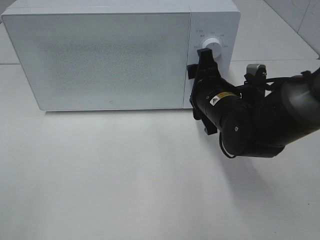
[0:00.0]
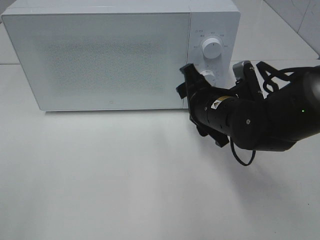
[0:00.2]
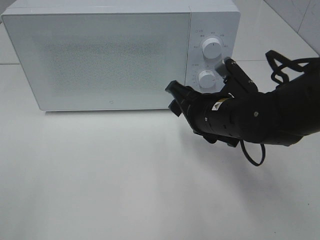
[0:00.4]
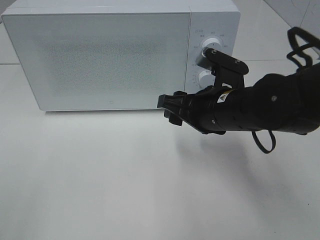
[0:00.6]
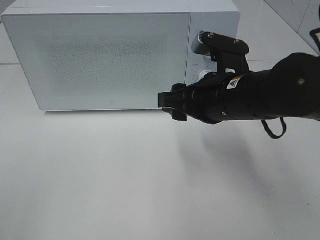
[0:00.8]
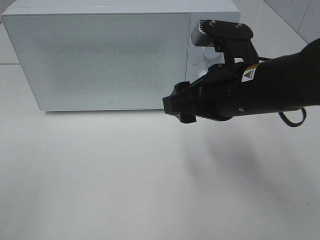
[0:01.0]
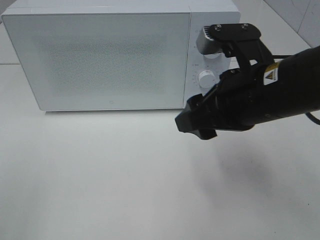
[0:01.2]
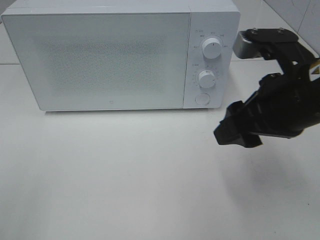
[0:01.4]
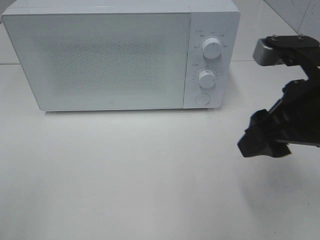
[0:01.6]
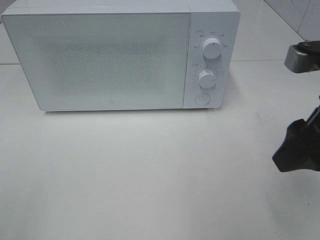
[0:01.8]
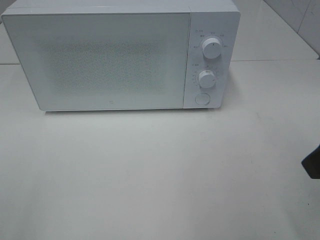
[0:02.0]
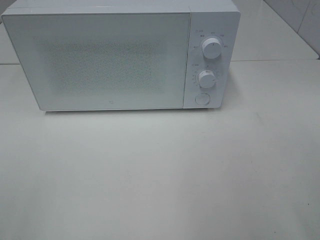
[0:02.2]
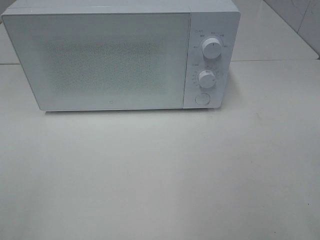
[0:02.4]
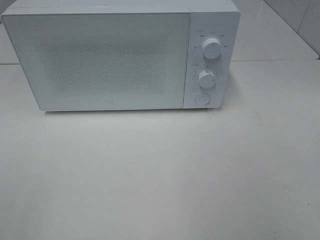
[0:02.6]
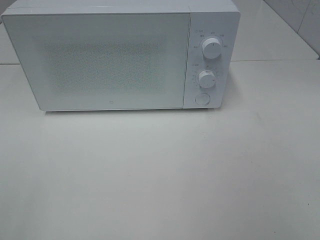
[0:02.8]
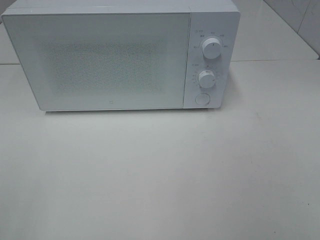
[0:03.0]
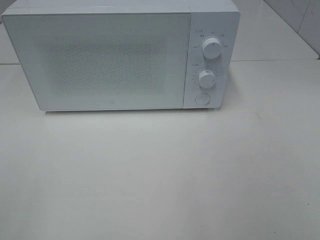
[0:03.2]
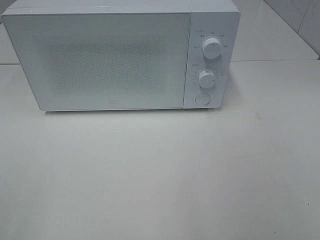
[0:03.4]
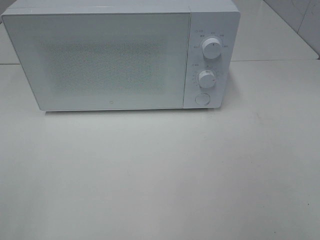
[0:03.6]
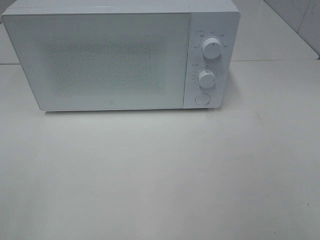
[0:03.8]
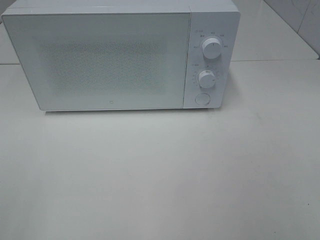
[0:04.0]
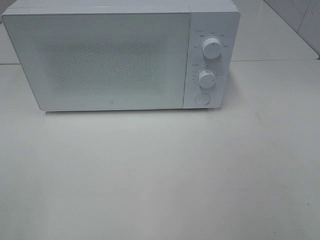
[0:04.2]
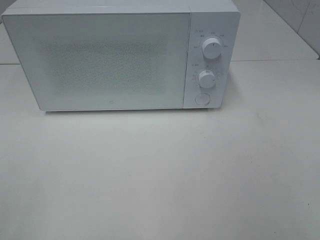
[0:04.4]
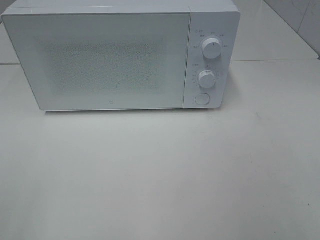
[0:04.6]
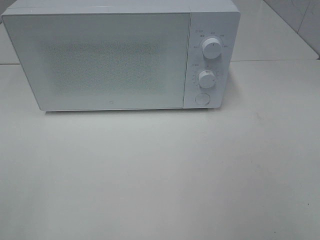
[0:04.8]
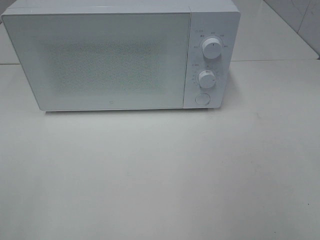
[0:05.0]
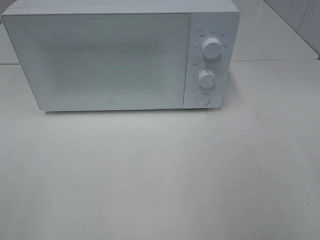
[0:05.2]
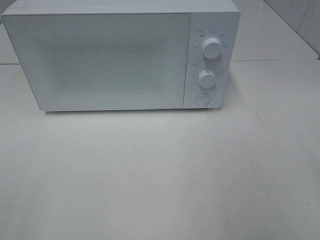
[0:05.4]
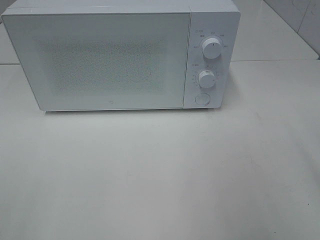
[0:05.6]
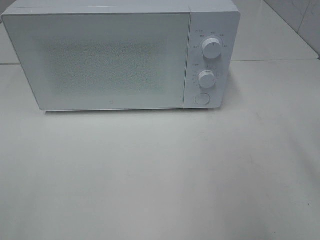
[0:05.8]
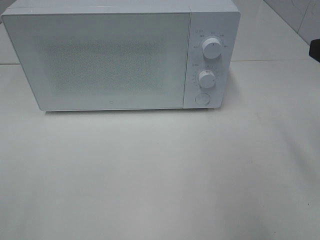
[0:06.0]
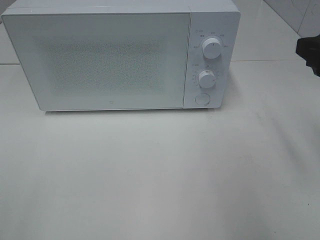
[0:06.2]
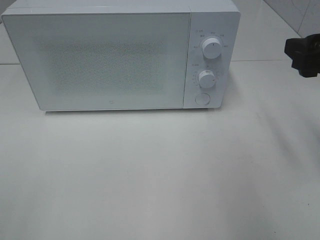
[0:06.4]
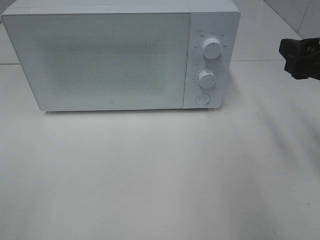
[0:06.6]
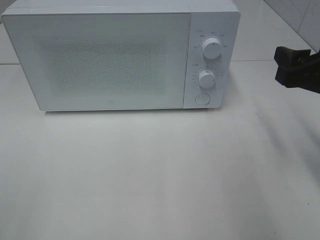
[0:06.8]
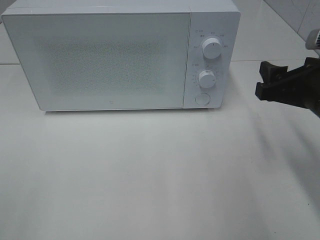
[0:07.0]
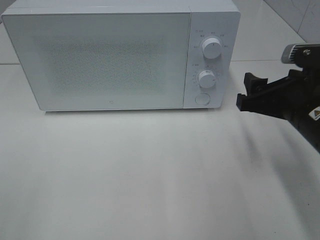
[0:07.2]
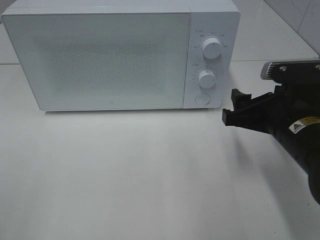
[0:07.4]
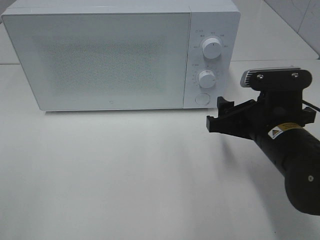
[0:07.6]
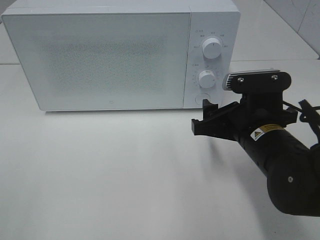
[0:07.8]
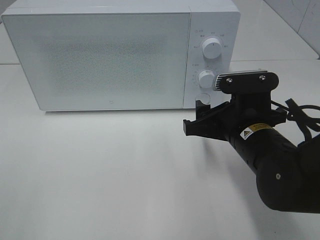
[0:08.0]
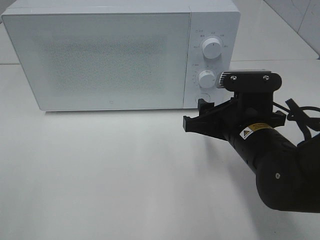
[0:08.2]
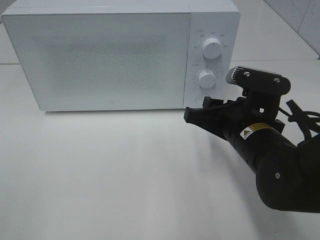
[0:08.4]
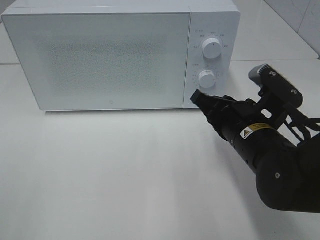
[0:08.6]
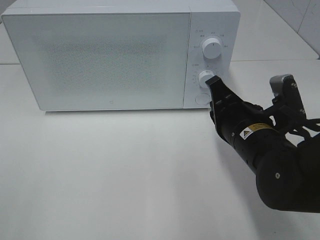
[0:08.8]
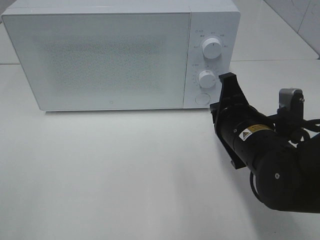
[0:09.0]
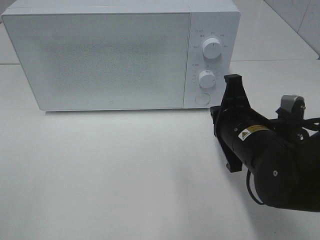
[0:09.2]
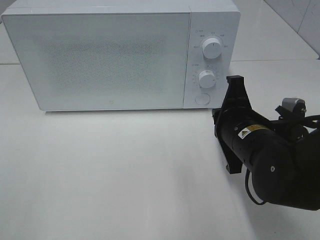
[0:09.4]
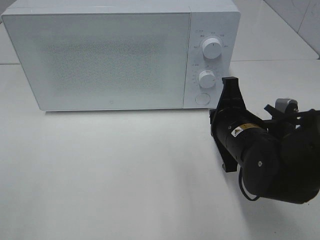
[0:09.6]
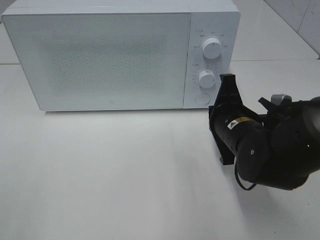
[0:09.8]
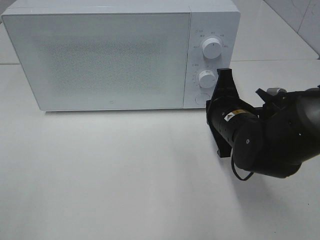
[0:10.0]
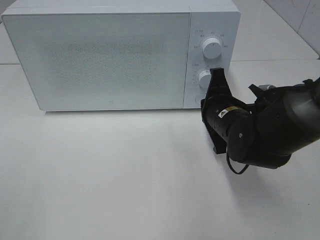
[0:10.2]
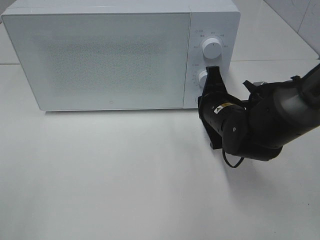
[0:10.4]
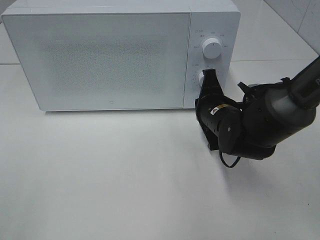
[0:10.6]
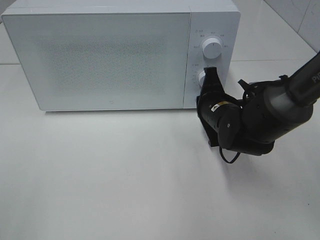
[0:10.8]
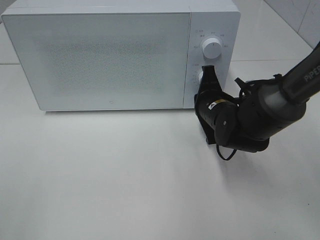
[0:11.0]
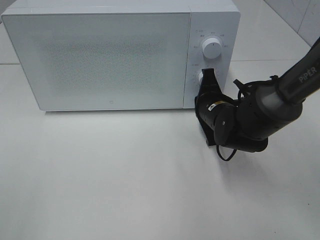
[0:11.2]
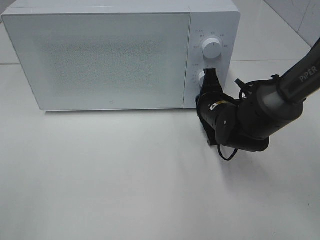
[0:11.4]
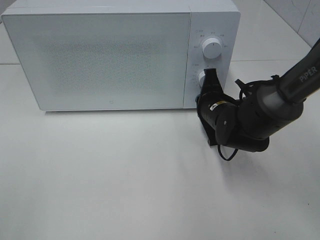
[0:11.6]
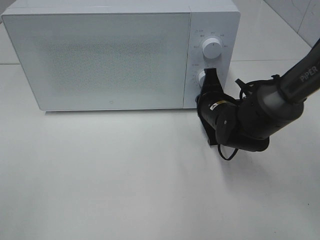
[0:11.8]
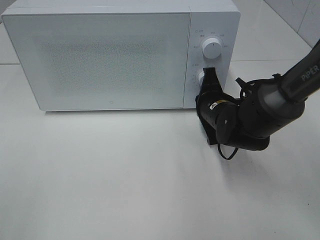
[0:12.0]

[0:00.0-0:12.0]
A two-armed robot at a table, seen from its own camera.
Task of the whole recording: Heat the burger.
0:00.0 to 0:01.6: The right gripper goes approximately 20 cm upward, backward and to the right.
0:01.6 to 0:03.0: The right gripper shifts about 25 cm backward and to the right.
0:06.0 to 0:07.6: The right gripper is displaced downward and to the left by roughly 20 cm.
0:07.6 to 0:09.0: The right gripper closes up.
0:09.0 to 0:10.4: The right gripper goes about 10 cm forward.
0:10.4 to 0:12.0: There are only small adjustments of the grippers.

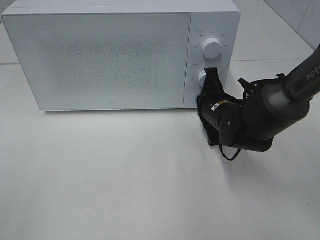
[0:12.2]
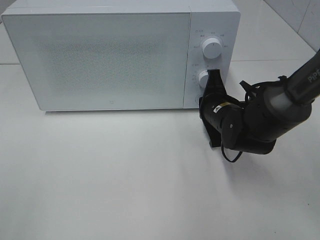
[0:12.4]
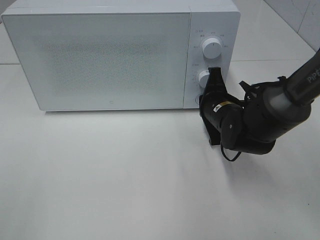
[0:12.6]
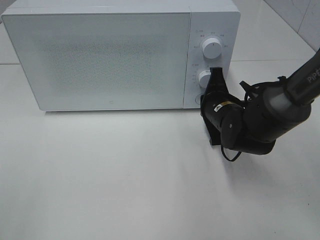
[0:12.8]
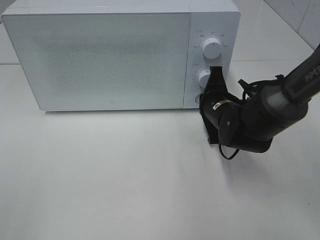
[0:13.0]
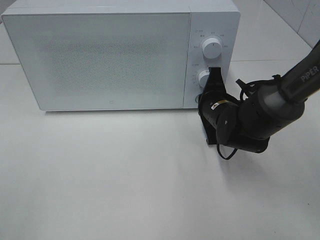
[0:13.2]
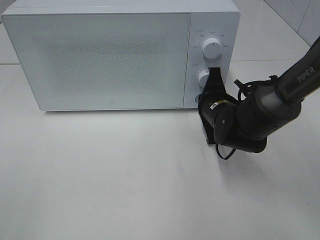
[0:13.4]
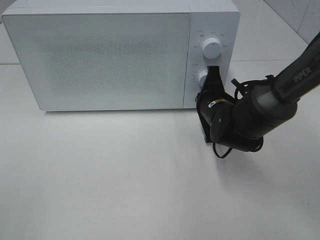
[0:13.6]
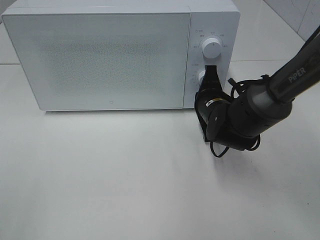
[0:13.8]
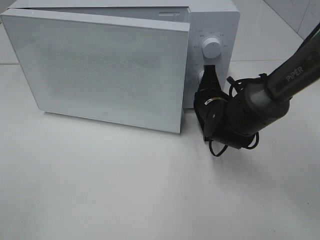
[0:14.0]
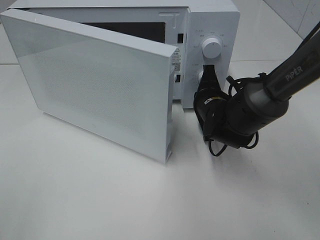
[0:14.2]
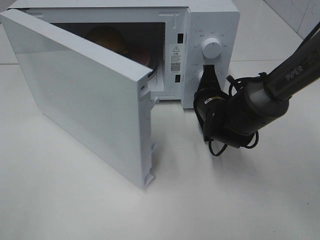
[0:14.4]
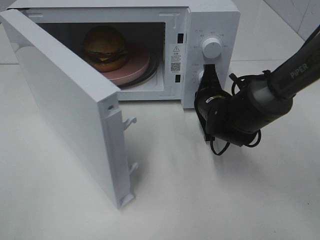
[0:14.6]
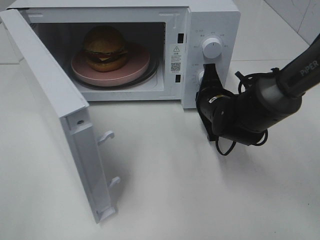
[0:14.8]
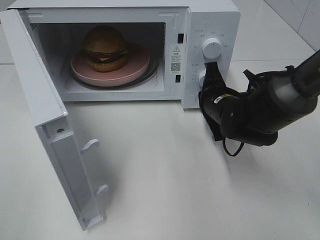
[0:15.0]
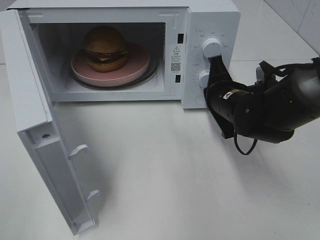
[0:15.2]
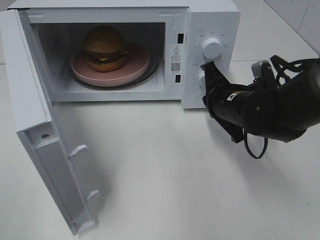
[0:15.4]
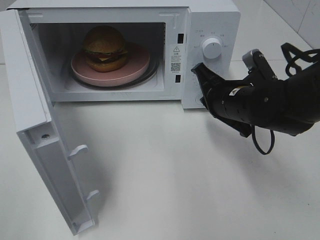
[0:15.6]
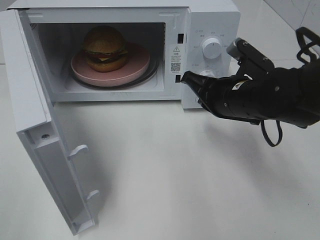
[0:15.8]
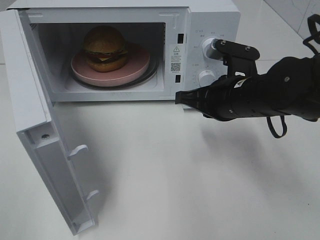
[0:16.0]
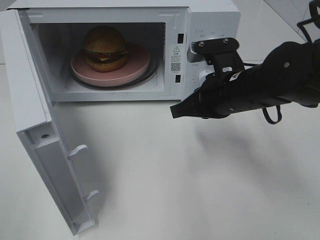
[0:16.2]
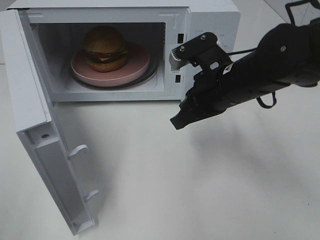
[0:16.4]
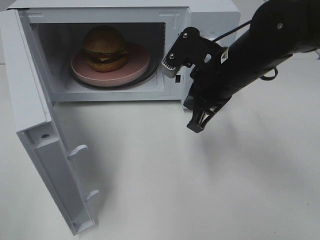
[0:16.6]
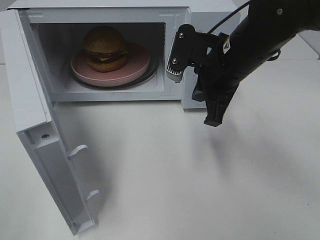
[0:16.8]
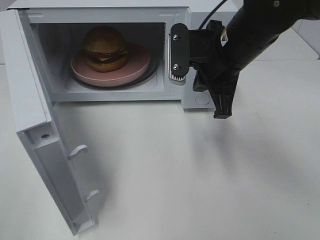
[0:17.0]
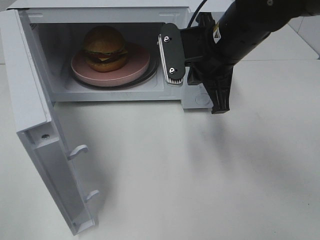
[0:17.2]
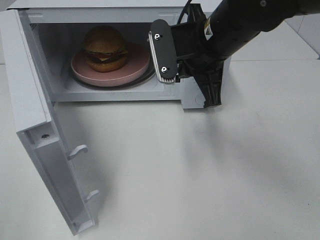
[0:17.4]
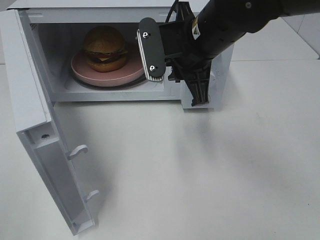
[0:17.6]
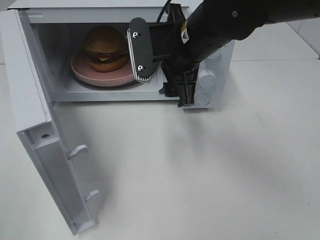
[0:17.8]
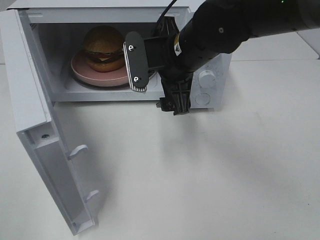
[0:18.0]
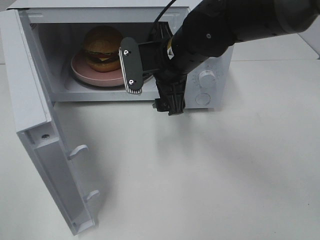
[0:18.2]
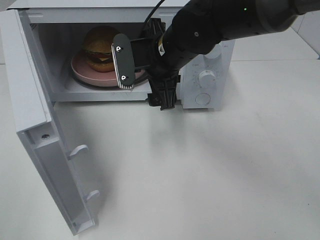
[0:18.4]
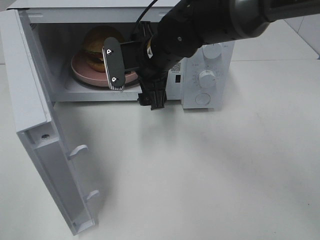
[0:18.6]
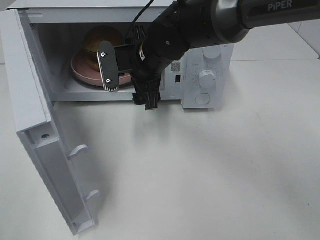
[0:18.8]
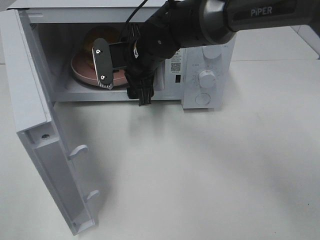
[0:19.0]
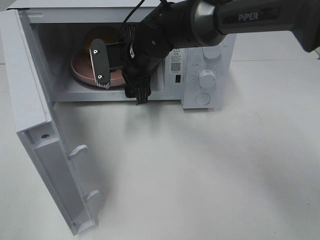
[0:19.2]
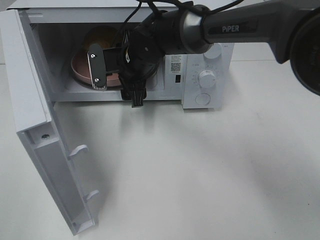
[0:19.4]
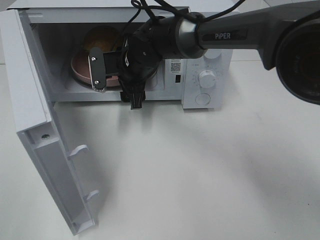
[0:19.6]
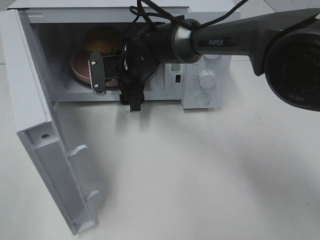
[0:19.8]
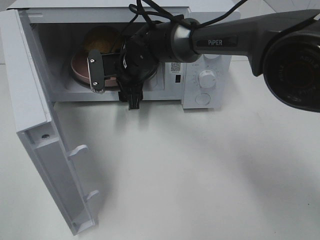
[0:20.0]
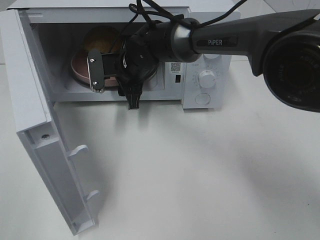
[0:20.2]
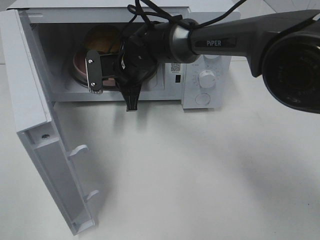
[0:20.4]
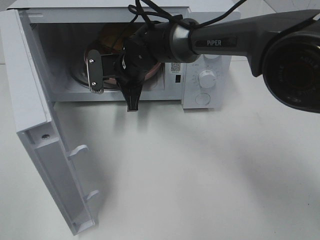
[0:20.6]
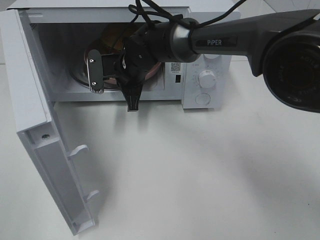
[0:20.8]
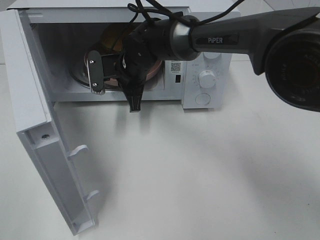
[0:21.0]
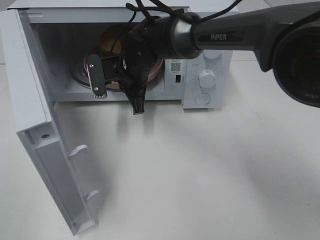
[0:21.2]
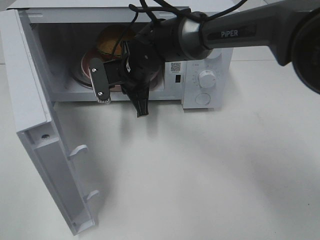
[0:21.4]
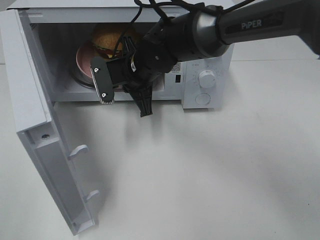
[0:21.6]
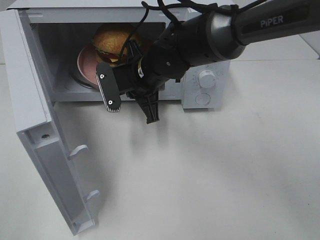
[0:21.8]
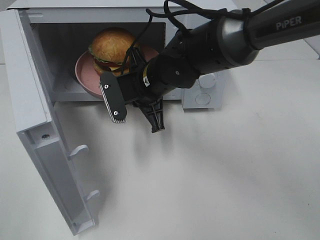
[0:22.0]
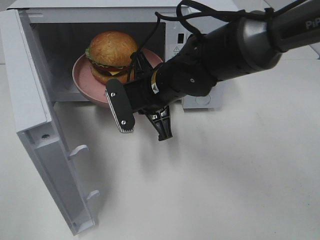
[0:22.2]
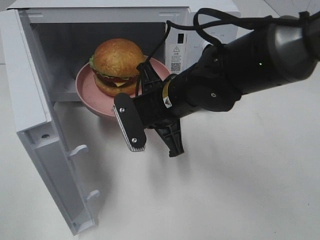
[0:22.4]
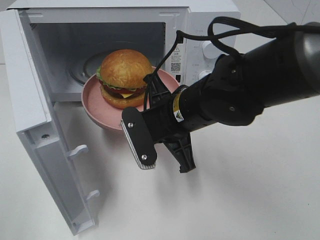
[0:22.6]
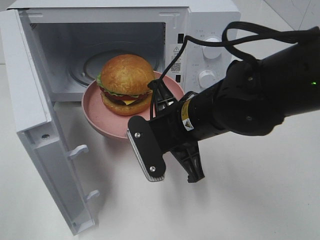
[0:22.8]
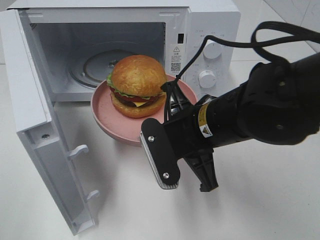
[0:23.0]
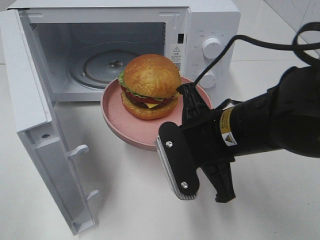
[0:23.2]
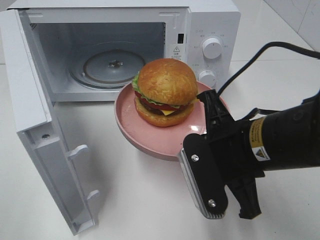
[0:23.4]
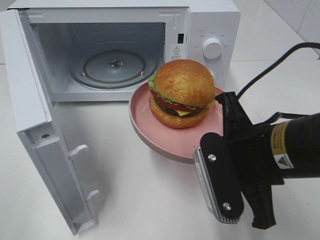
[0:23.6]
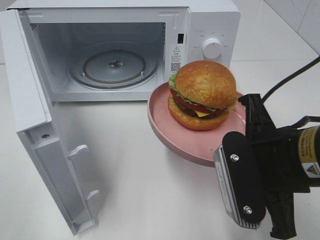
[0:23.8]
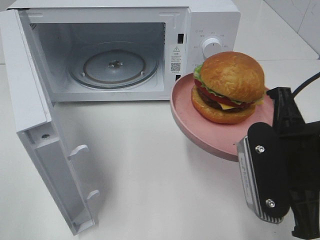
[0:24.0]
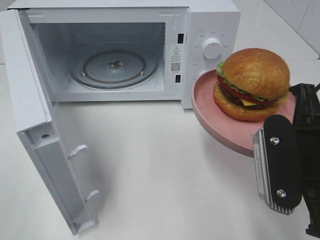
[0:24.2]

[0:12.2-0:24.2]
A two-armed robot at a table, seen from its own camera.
Task of the whole recording: Heat the burger.
Step, 0:12.2 to 0:15.0: Right hand: press the switch.
Step, 0:15.2 to 0:20.6: Right hand: grab the plate with the hamburger.
0:12.2 to 0:13.8: The grippers move only a little.
0:15.2 to 0:16.6: The right gripper is displaced upward by roughly 10 cm.
0:16.6 to 0:18.2: The right gripper heads to the left, covering approximately 10 cm, and opens its fingers.
0:18.2 to 0:19.8: The right gripper moves forward, to the left and downward, approximately 15 cm.
0:19.8 to 0:21.2: The right gripper closes its fingers.
0:21.2 to 0:22.6: The right gripper moves backward and to the right, some 15 cm.
0:22.6 to 0:24.2: The right gripper shifts approximately 20 cm to the right, backward and upward.
